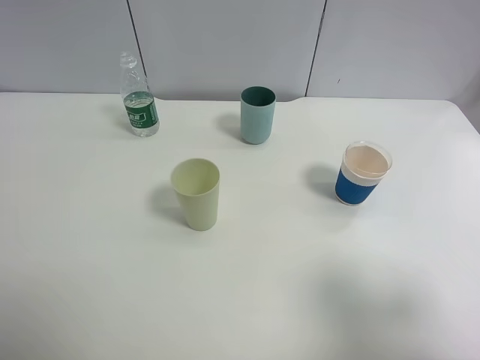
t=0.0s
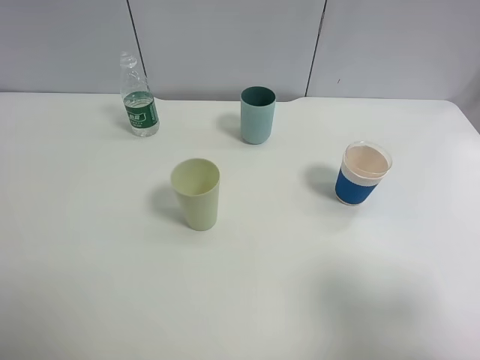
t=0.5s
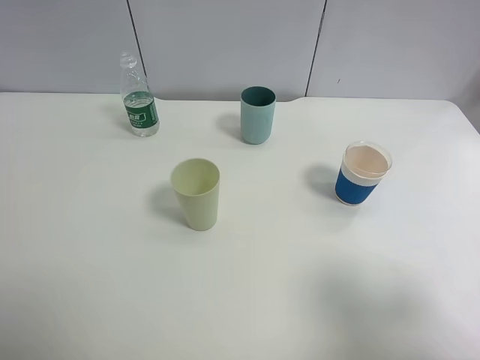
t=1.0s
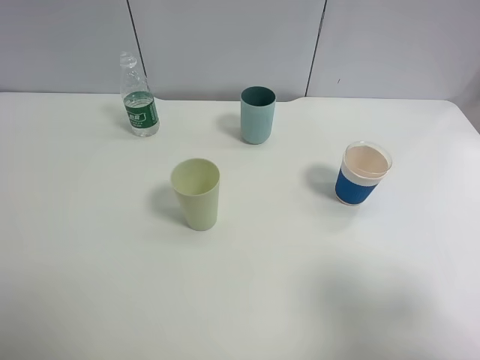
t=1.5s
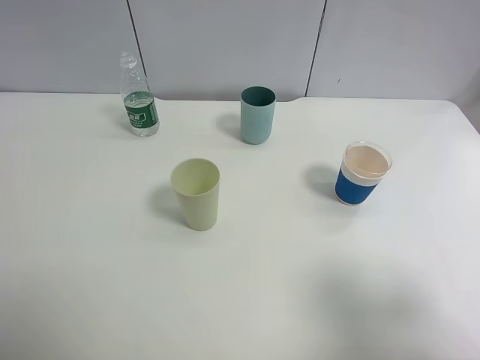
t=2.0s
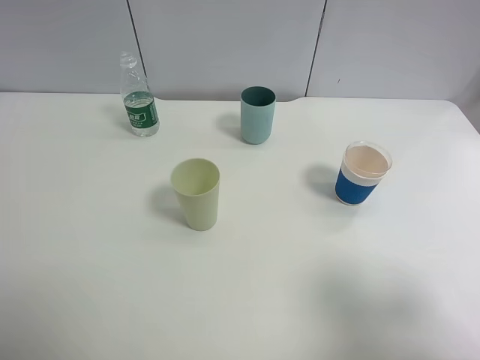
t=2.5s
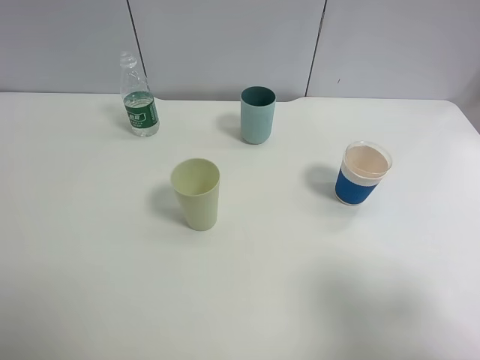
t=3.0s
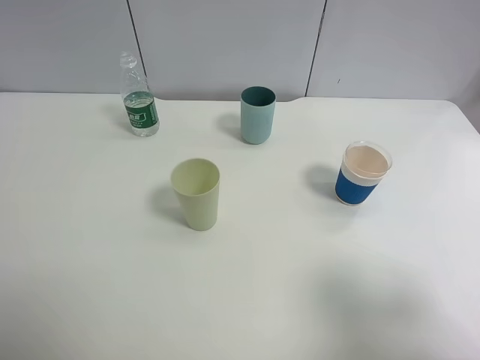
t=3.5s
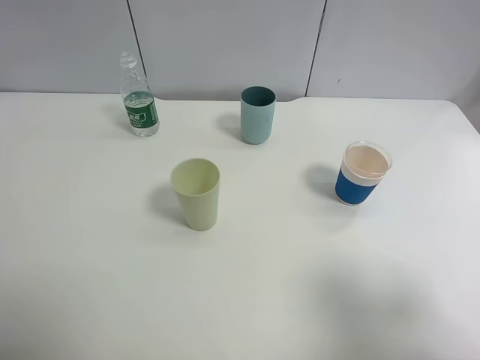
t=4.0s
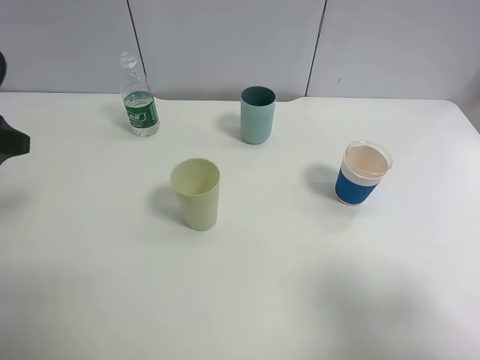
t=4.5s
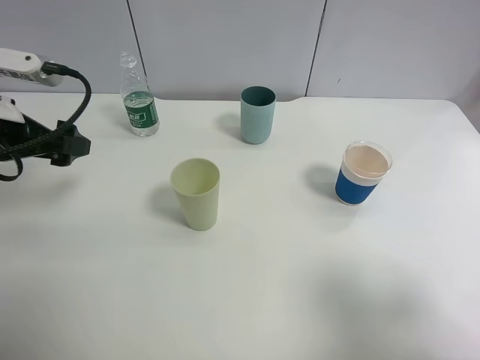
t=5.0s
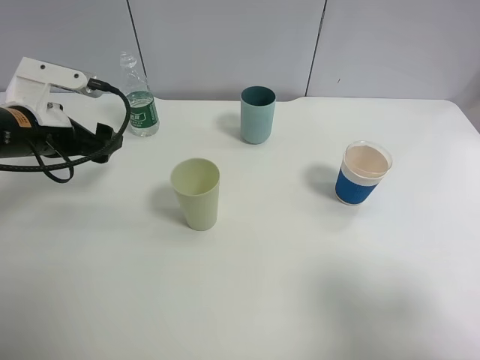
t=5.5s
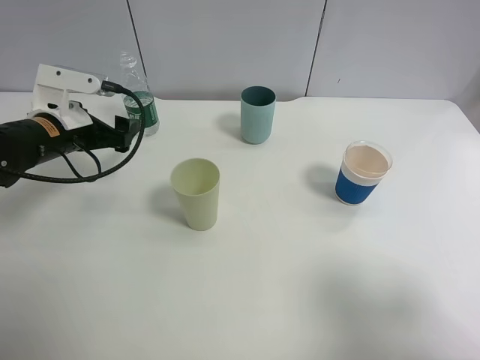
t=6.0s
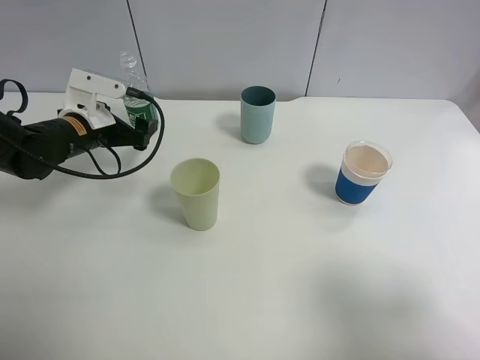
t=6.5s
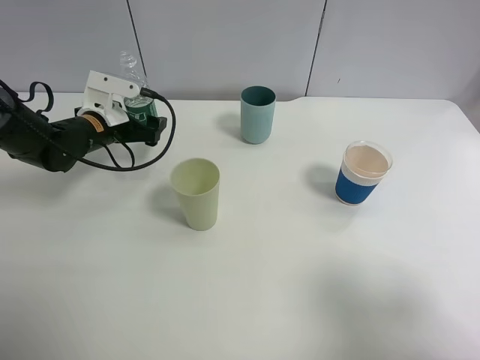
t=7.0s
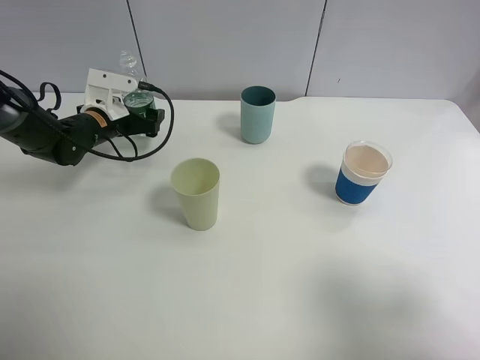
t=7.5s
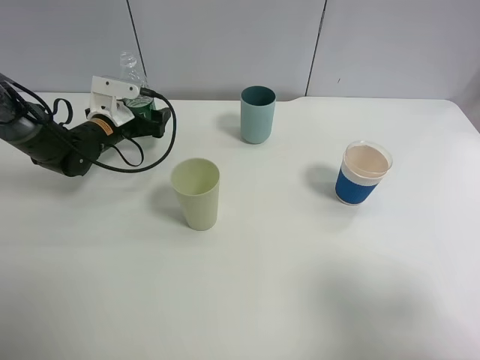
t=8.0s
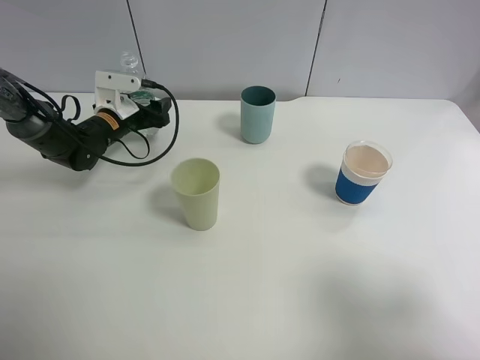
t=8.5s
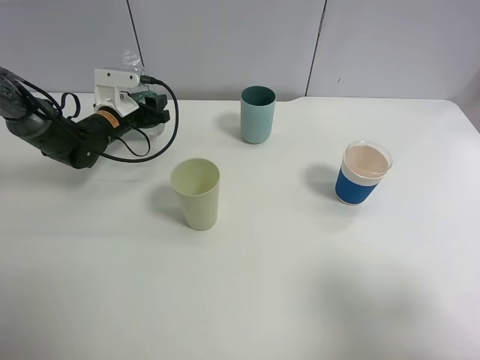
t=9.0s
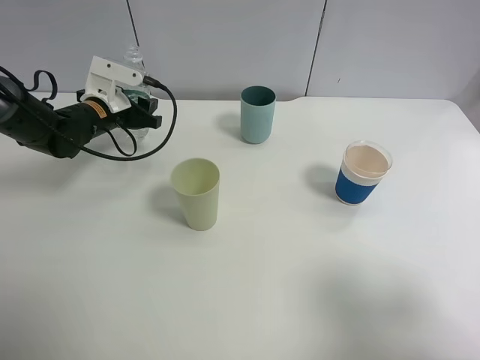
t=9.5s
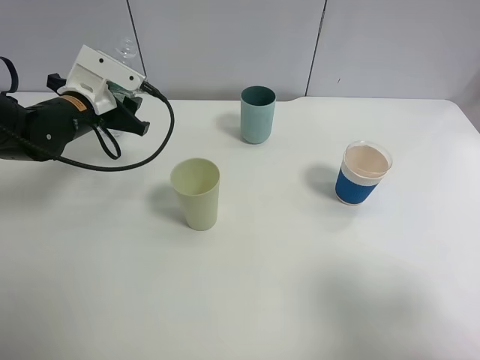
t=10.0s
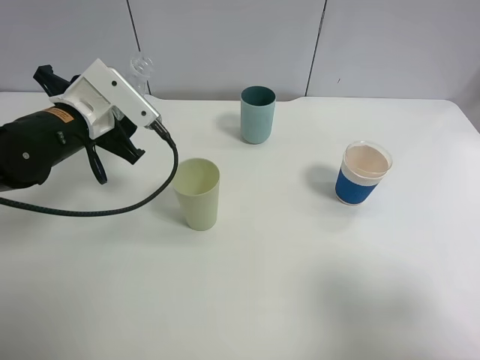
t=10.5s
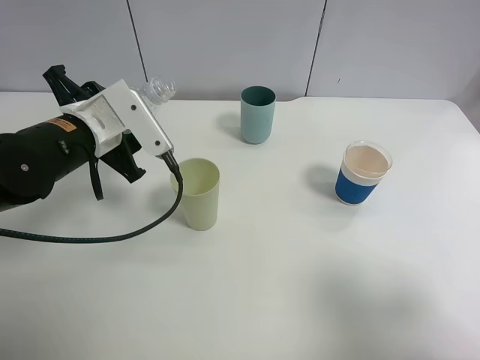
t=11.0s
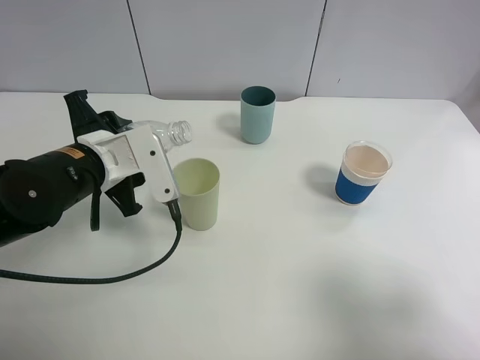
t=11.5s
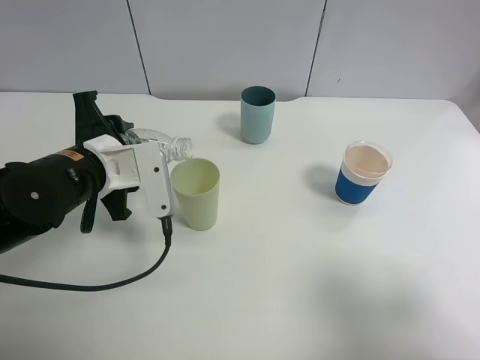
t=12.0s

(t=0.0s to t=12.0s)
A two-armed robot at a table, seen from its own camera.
Task of the whole recording: use a clamp to hold the bottle of the drink, pour the beverage into a random cup, then clamp the cup containing the drink and pour the drink into another random cup.
Step, t=0.0s - t=9.5s: Pick up the water bottle with left gripper.
t=0.0s - t=2.0s: Both grippers stay about where they are.
t=4.0s - t=6.0s: The left gripper shifts some 25 cm forward and downward.
t=6.0s - t=8.0s: The left gripper heads forward and downward, covering some 10 cm.
t=8.0s - t=10.0s: The left gripper travels upward and backward by roughly 10 cm, and closes.
t=10.0s - t=12.0s: The left gripper is displaced backward and to the right by some 15 cm.

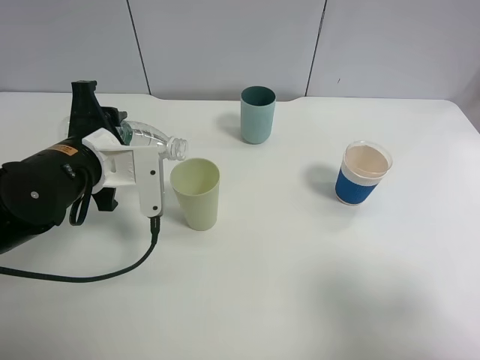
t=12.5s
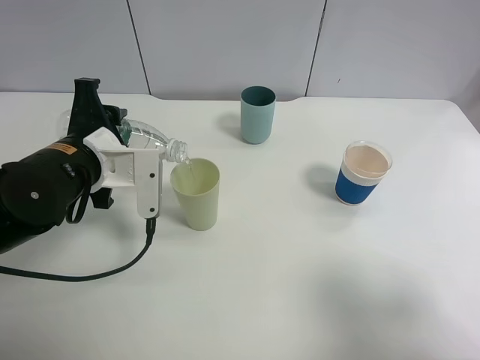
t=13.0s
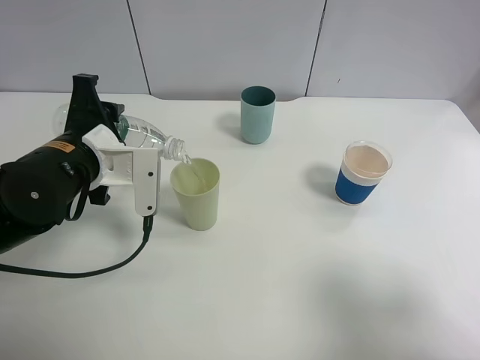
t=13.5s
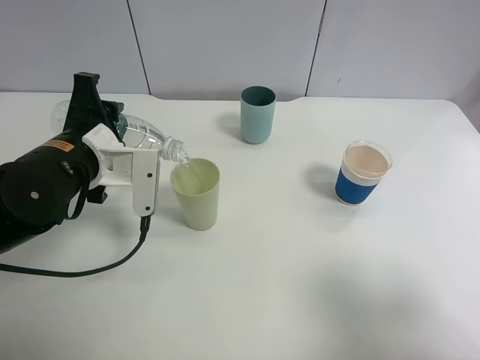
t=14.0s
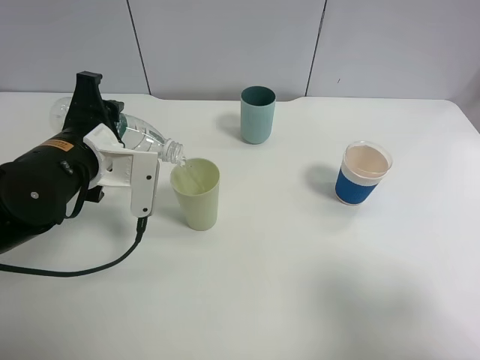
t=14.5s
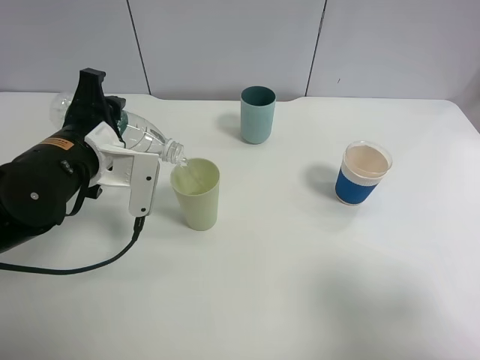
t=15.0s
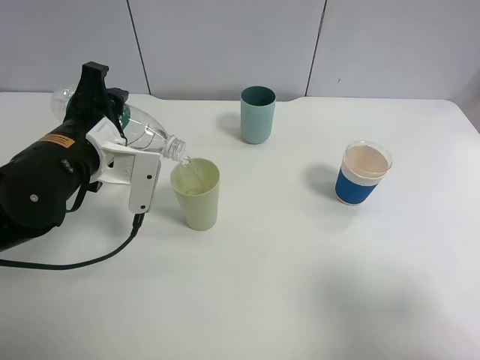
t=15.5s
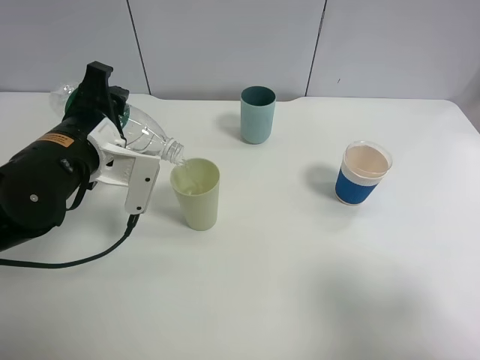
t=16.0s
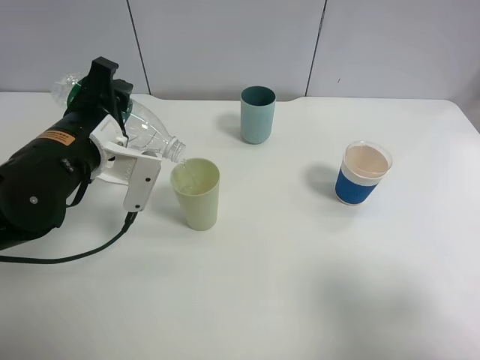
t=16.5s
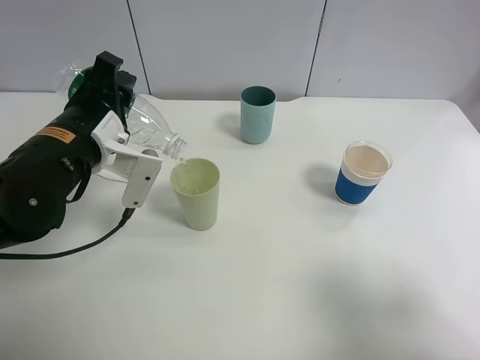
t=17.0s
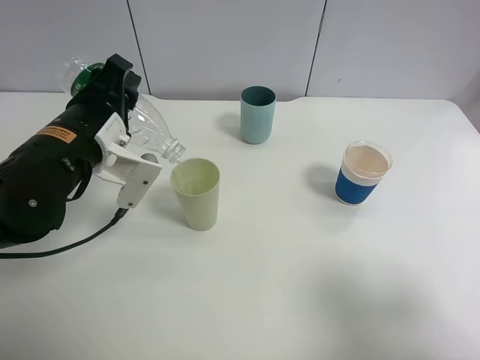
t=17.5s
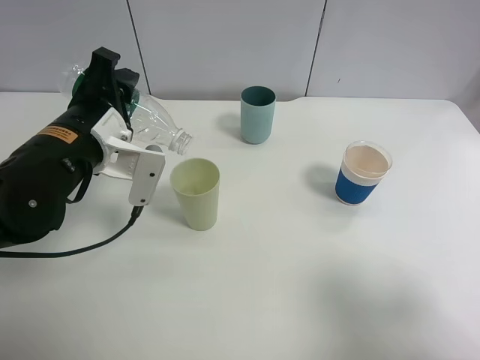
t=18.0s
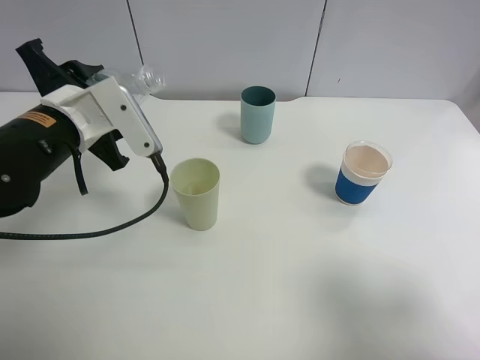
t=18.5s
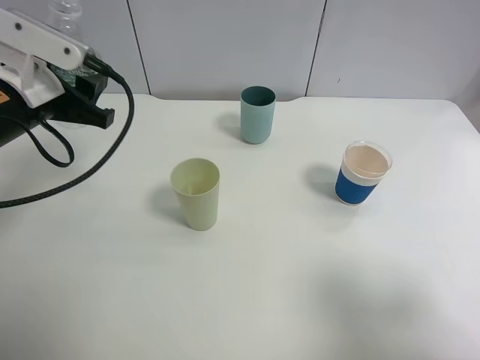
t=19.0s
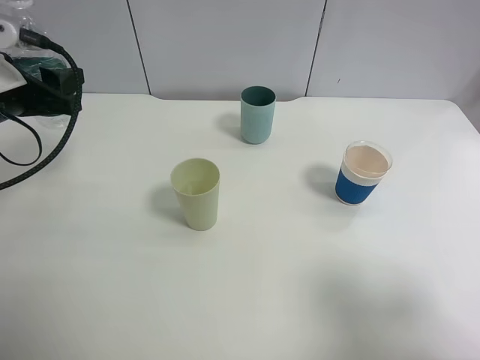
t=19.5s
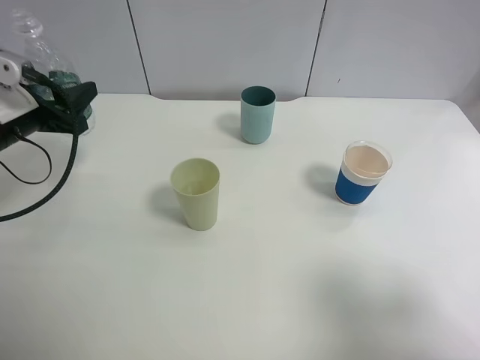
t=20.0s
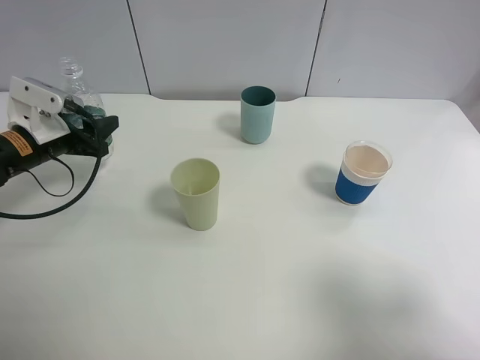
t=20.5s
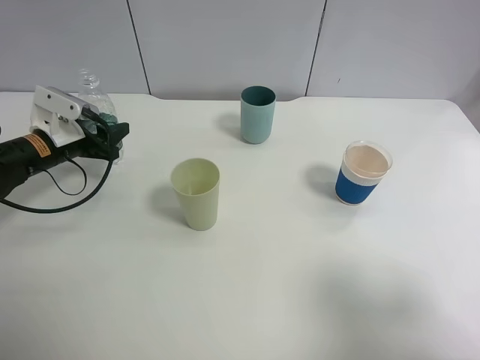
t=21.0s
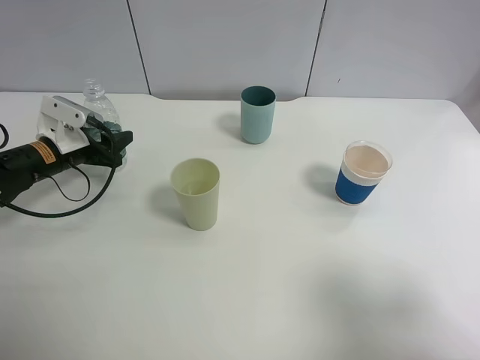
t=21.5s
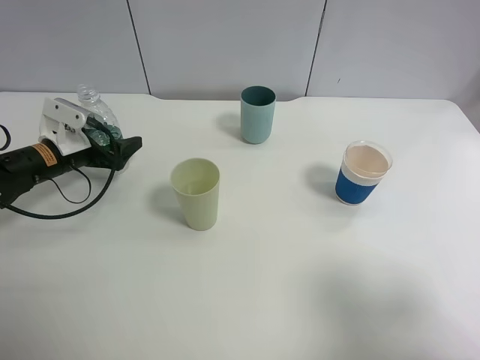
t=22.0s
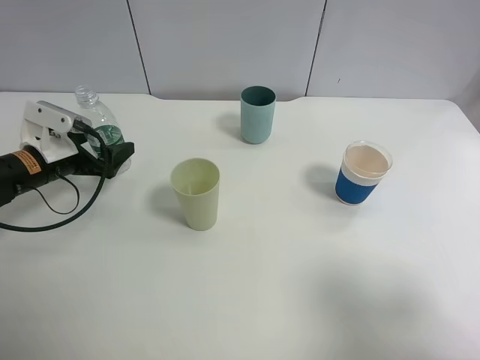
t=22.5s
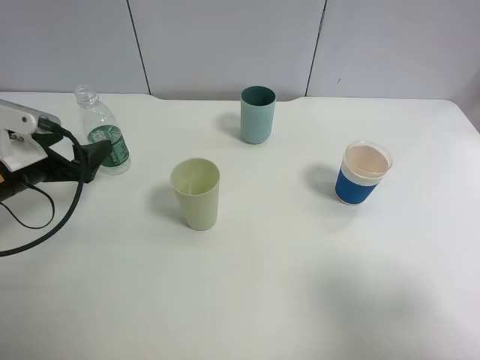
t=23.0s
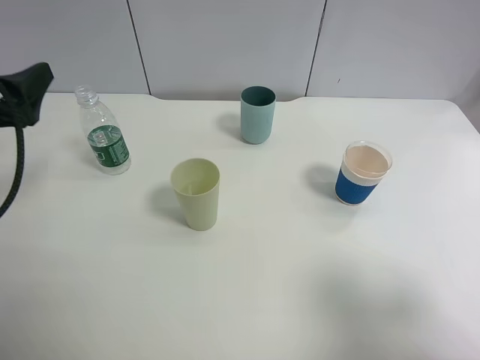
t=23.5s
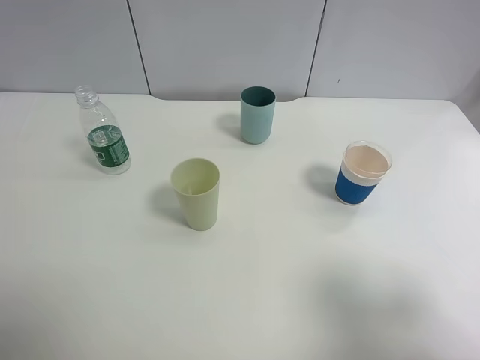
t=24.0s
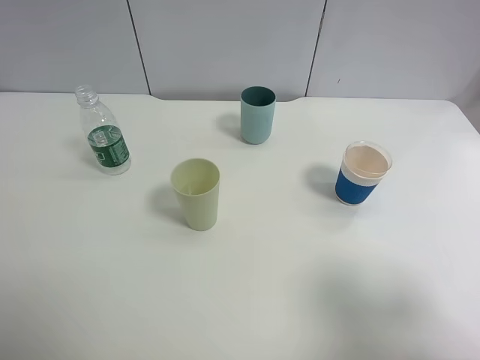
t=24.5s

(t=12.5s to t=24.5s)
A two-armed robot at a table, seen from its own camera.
Task of the whole recording: use a clamp to hold the bottle of the drink, pour the beverage into a random cup, then clamp the cup containing the drink and pour the drink into another random cup.
Step, t=12.5s - t=18.0s: Pour the water into the green plastic cup with left gripper.
Step, t=18.5s - t=23.0s: Place the water bottle on the table with left gripper.
t=12.5s - t=14.5s: There are only small adjustments of the grippers.
t=14.5s - t=16.5s: The grippers move only a little.
t=18.5s - t=20.5s: The left gripper shifts roughly 15 cm to the left, downward and forward.
t=20.5s - t=22.5s: The left gripper opens.
t=22.5s - t=24.5s: The left gripper goes roughly 40 cm backward and upward.

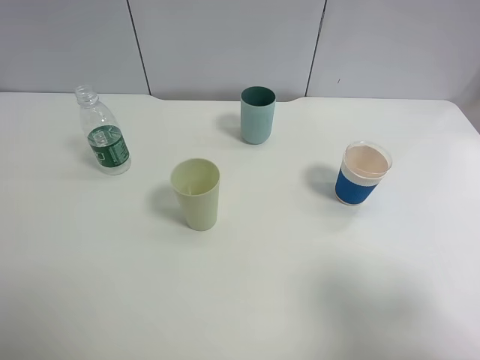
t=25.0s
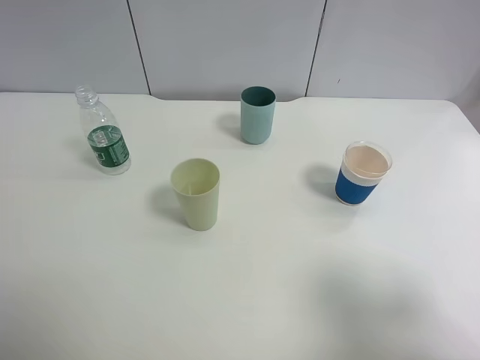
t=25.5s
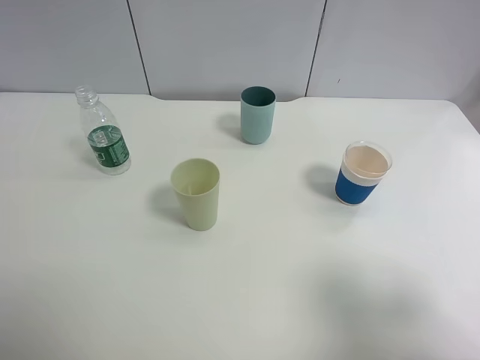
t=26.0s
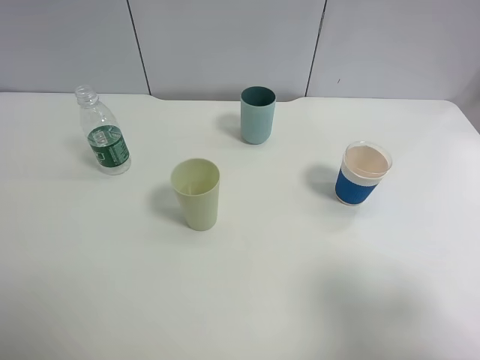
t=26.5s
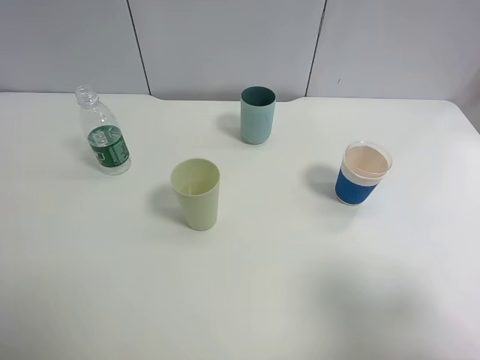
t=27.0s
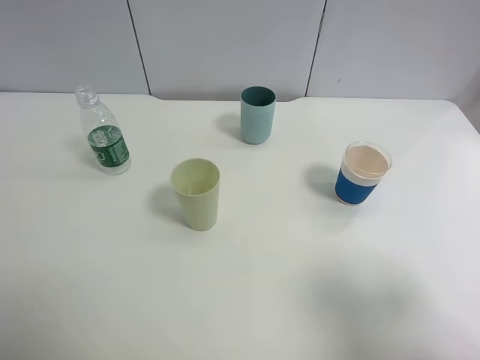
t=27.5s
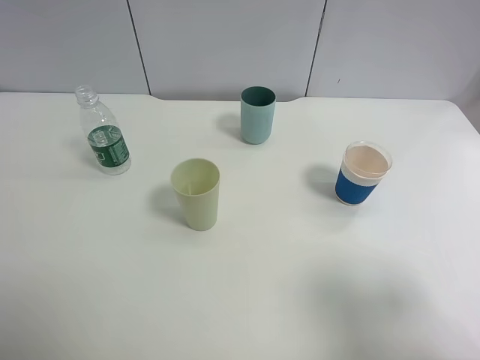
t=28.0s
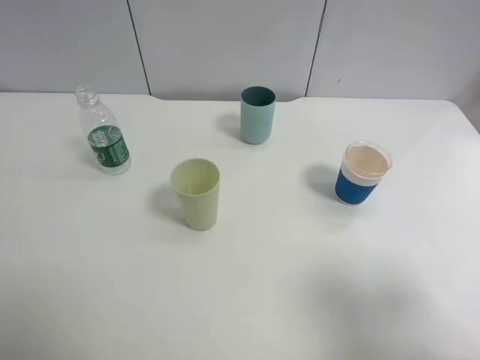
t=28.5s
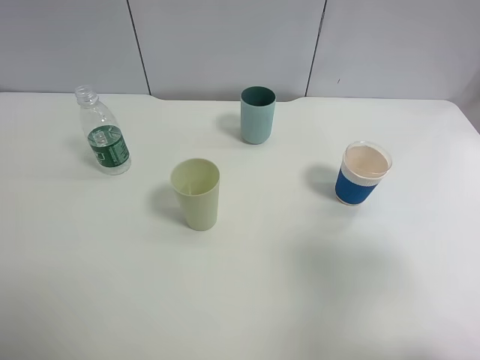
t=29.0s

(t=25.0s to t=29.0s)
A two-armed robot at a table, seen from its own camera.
Task of the whole recording: use a clamp to hold the bottle of the drink, pour the beverage into a random cup, then clamp the cup containing the drink and pour the drink into another random cup.
t=27.0s - t=29.0s: The right gripper moves forward, about 5 cm.
